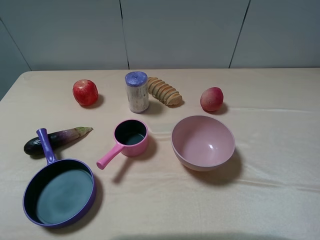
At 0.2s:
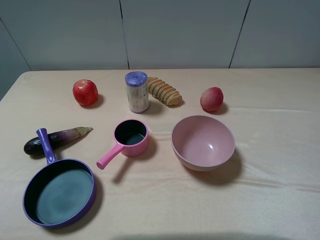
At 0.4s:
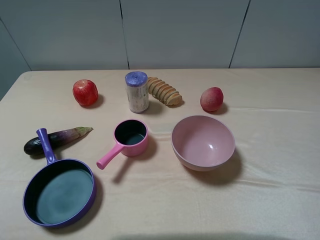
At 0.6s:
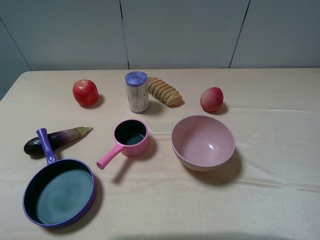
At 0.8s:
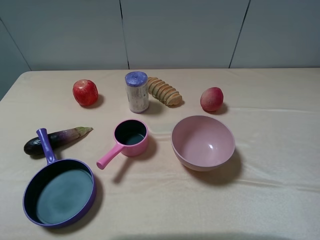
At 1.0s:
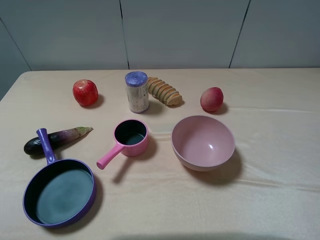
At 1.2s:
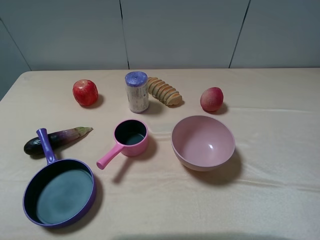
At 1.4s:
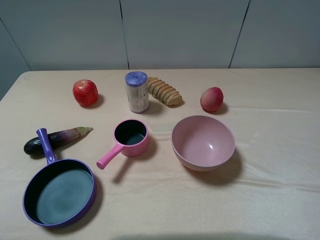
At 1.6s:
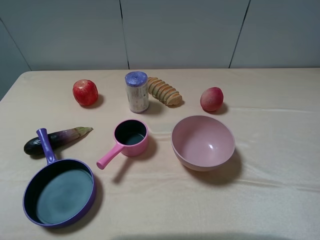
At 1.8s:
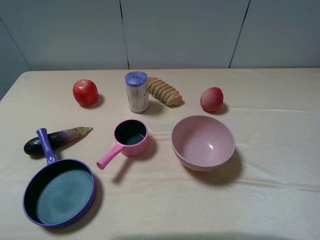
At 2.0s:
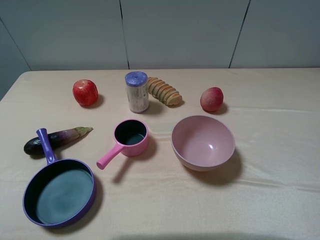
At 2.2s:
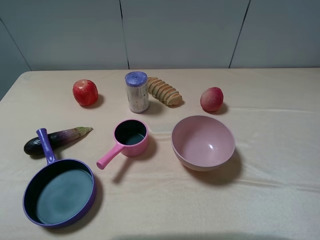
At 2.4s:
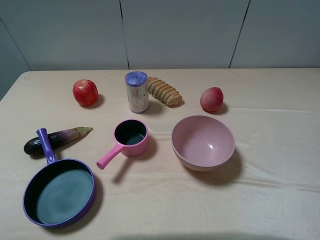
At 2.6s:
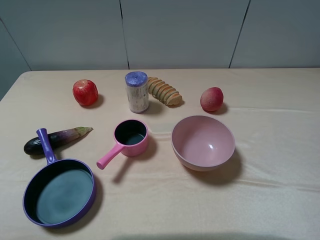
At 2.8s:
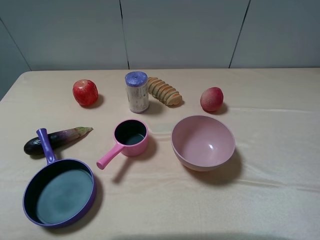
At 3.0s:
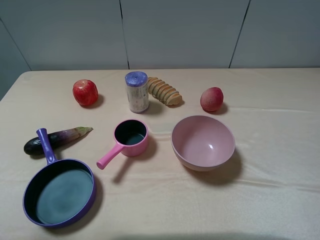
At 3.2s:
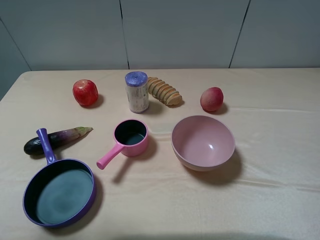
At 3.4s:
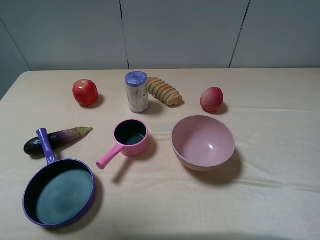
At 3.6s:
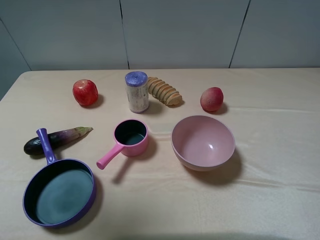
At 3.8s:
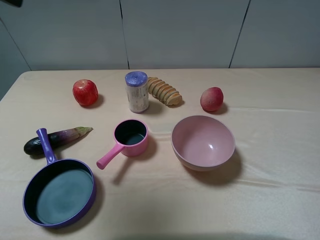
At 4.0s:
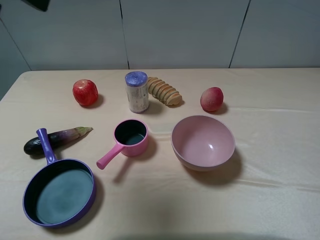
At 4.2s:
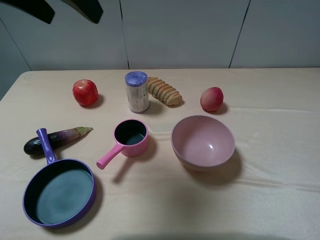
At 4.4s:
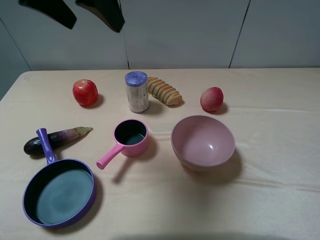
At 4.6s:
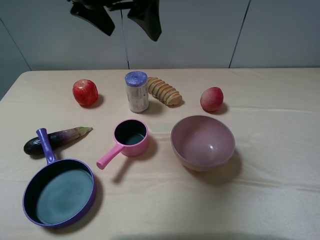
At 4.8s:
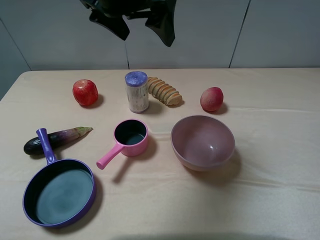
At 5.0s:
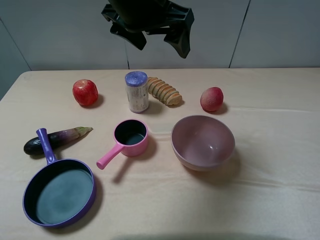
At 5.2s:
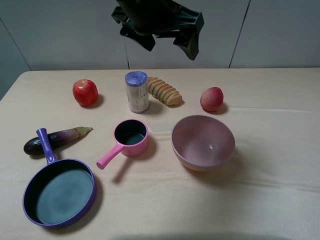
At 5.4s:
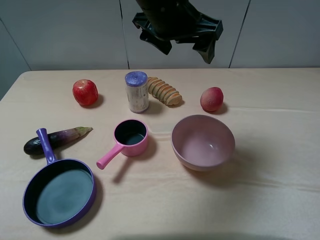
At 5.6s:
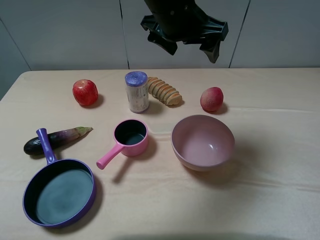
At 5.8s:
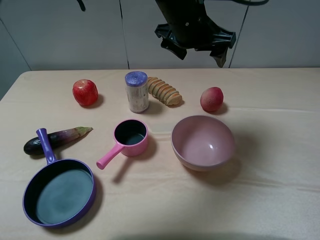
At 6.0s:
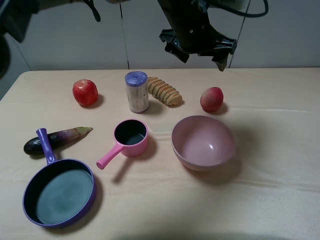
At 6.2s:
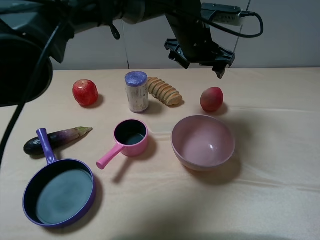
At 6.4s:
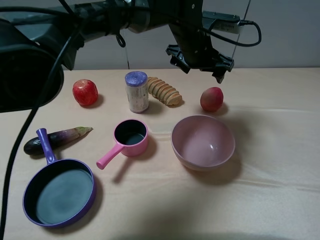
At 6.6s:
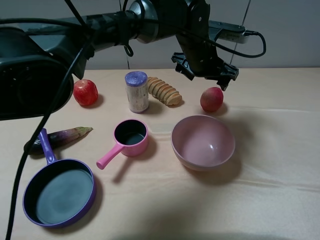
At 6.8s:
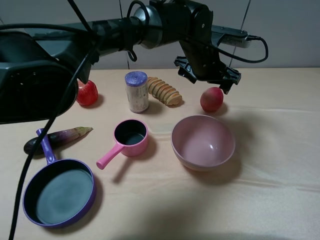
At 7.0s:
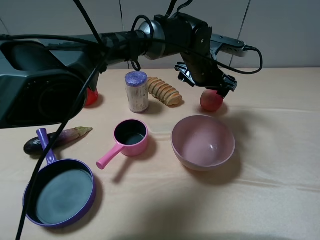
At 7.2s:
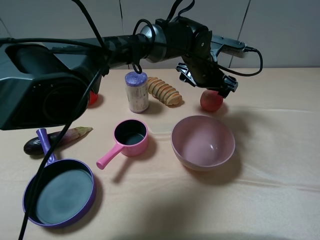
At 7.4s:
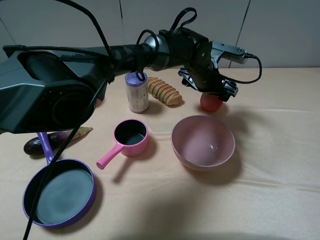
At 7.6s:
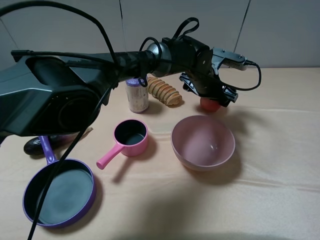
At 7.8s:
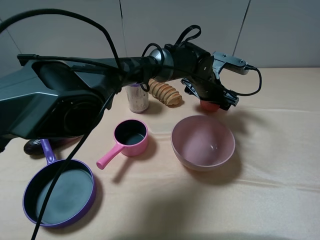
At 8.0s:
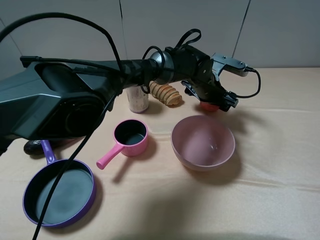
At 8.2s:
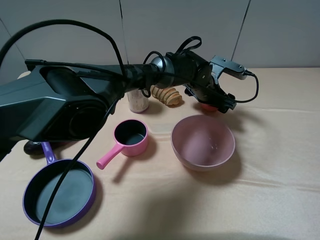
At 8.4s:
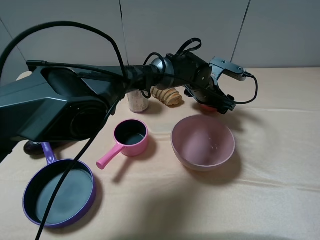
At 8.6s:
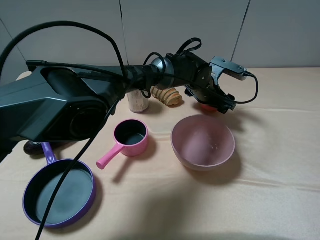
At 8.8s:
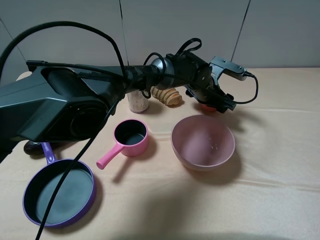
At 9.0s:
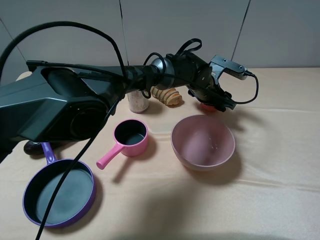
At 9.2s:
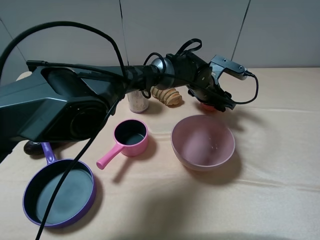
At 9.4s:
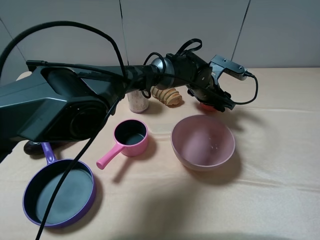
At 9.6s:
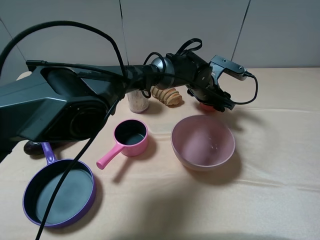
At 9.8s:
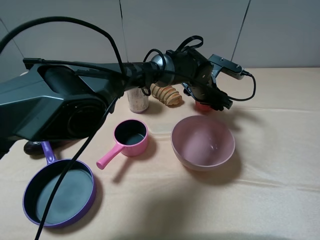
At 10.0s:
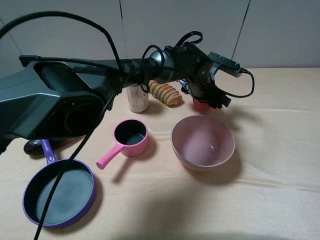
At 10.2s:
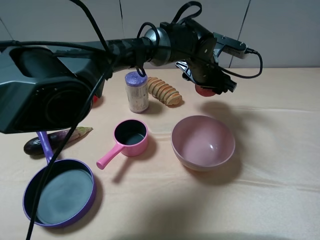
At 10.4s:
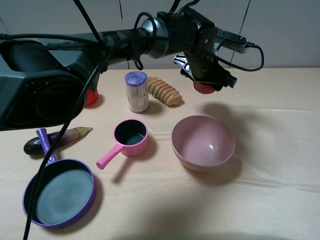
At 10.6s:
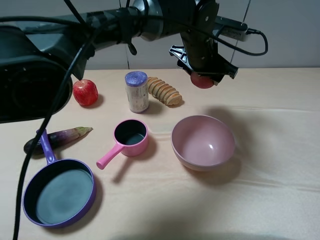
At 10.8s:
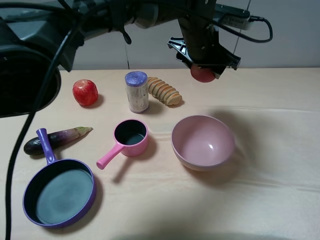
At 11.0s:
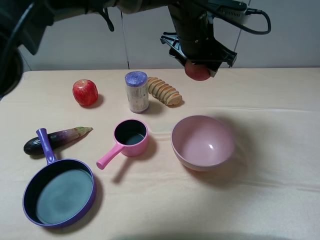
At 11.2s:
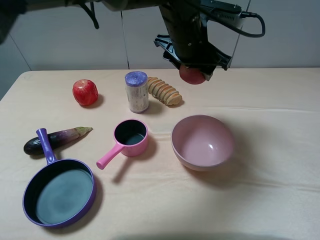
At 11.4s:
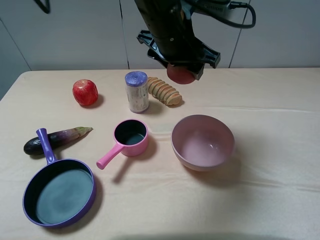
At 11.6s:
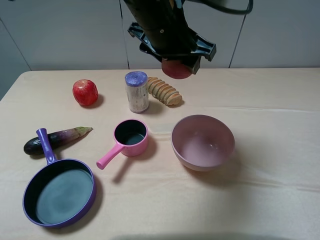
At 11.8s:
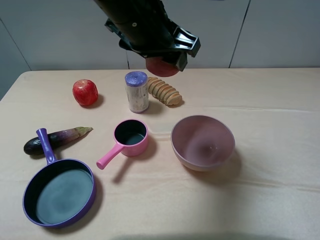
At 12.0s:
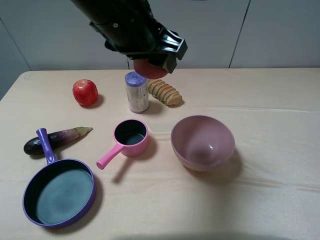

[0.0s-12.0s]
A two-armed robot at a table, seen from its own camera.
Task of the whole recording: pick up an item with a gripper and place it in a random container on the table.
Step, 0.0s to 9.4s: Grasp the peach with the left gripper.
0.0s to 1.6s: The two grippers keep their place.
3.0s to 4.4s: The left gripper goes approximately 25 cm forward and to the right.
4.4s to 6.0s: The left gripper shifts approximately 25 cm to the right, downward and forward.
6.0s to 7.6s: The left gripper travels downward and to the right by some 15 cm.
7.6s to 9.0s: The left gripper closes.
9.0s to 10.4s: The left gripper shifts approximately 10 cm upward.
10.4s to 12.0s: The left gripper travels to the left, upward and backward by about 25 cm.

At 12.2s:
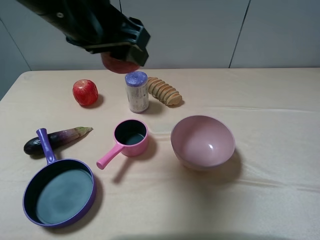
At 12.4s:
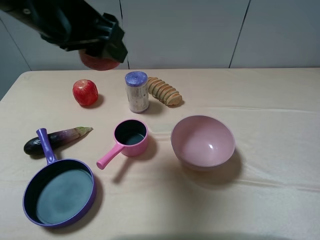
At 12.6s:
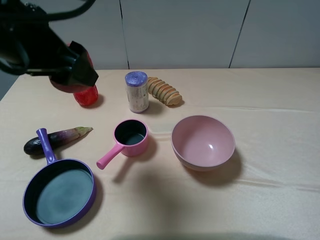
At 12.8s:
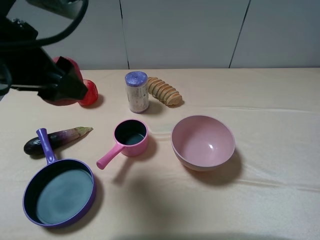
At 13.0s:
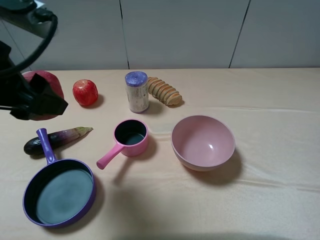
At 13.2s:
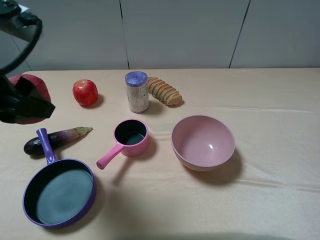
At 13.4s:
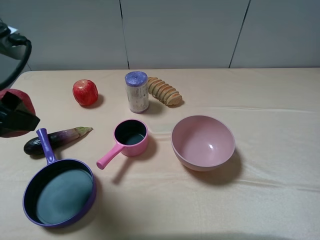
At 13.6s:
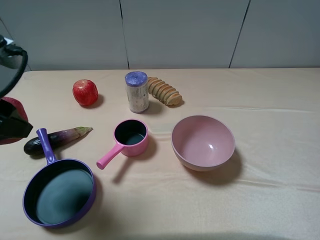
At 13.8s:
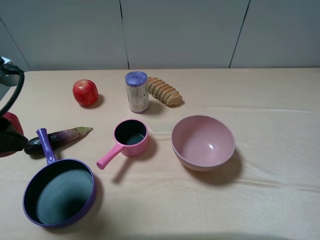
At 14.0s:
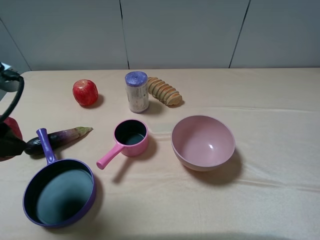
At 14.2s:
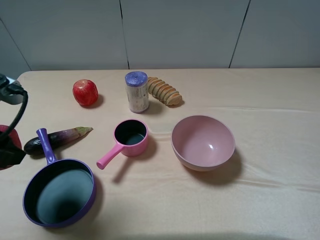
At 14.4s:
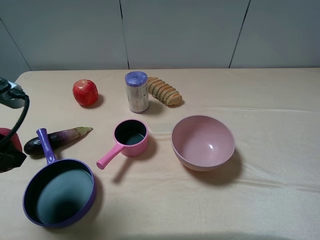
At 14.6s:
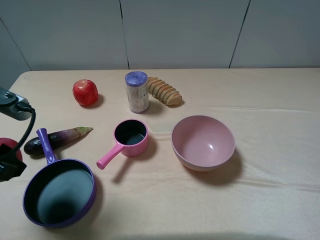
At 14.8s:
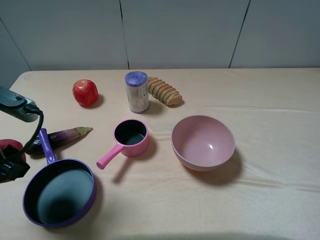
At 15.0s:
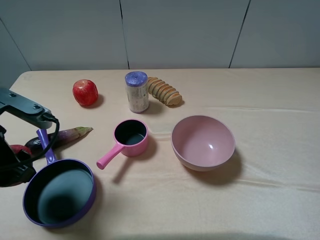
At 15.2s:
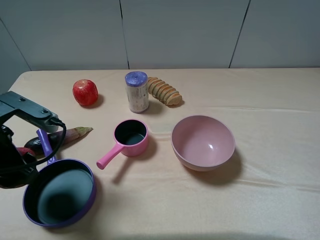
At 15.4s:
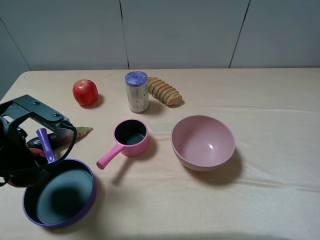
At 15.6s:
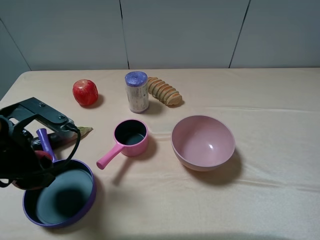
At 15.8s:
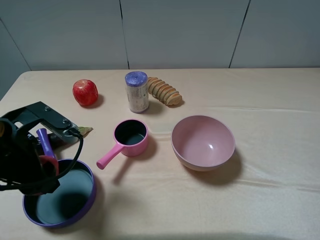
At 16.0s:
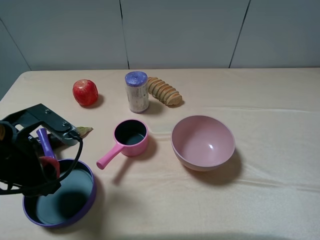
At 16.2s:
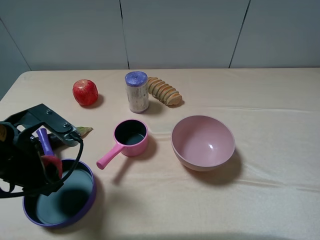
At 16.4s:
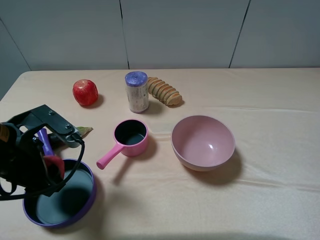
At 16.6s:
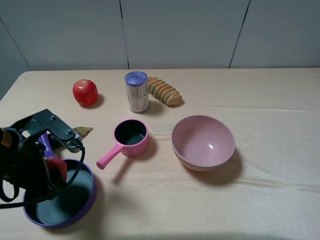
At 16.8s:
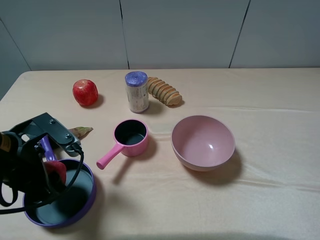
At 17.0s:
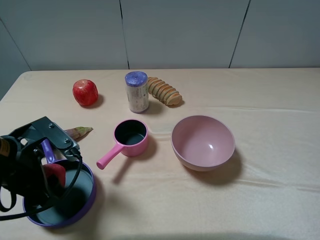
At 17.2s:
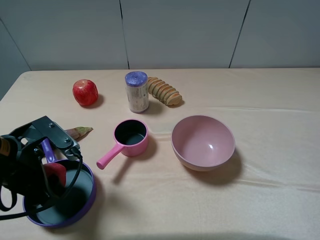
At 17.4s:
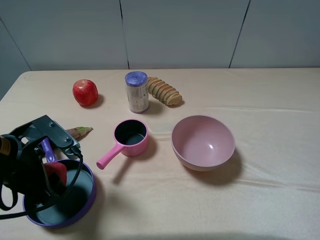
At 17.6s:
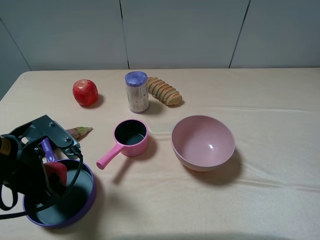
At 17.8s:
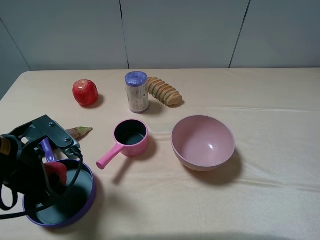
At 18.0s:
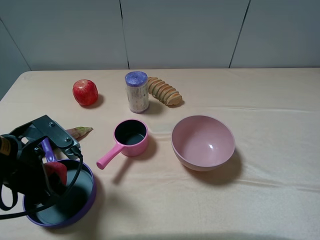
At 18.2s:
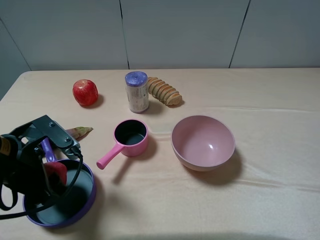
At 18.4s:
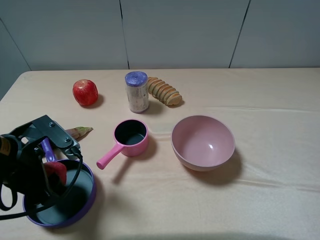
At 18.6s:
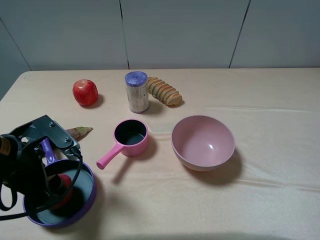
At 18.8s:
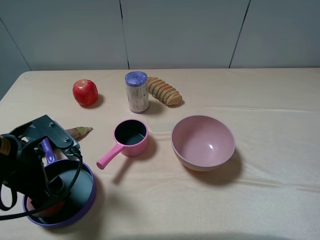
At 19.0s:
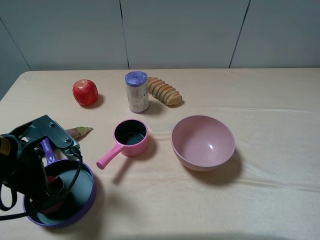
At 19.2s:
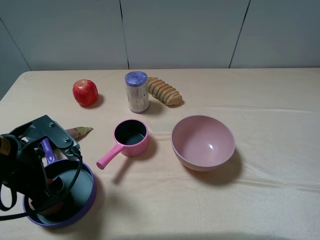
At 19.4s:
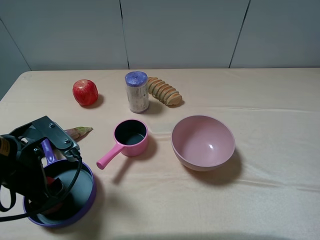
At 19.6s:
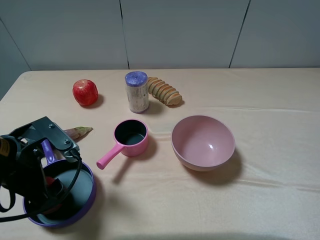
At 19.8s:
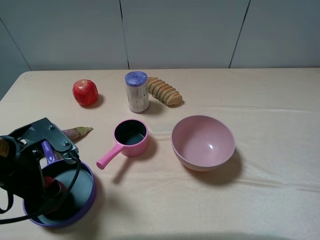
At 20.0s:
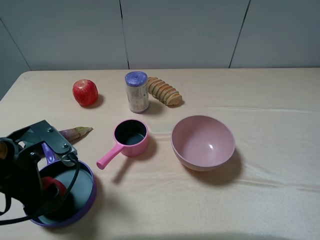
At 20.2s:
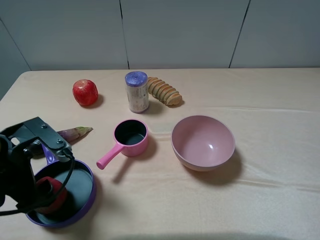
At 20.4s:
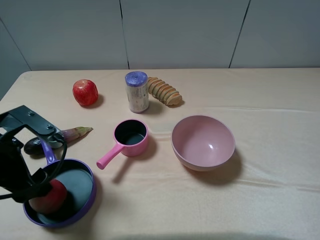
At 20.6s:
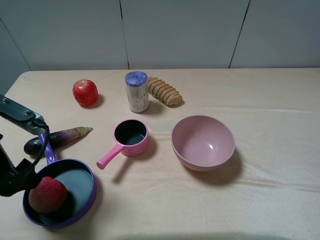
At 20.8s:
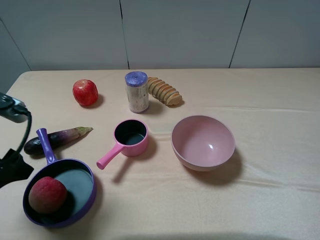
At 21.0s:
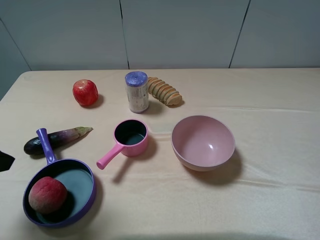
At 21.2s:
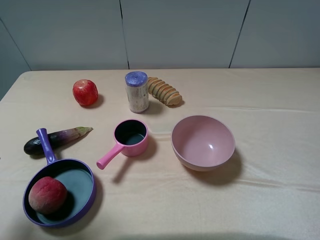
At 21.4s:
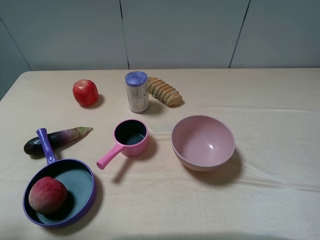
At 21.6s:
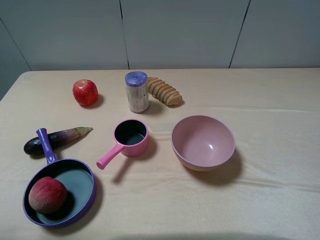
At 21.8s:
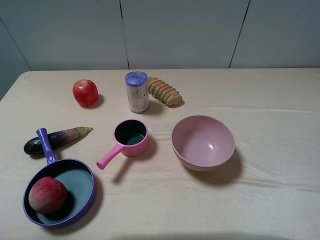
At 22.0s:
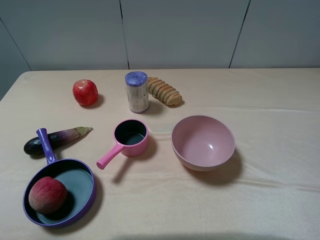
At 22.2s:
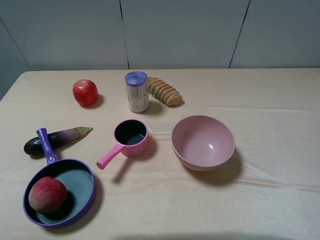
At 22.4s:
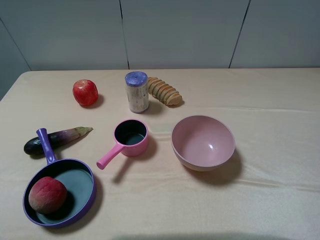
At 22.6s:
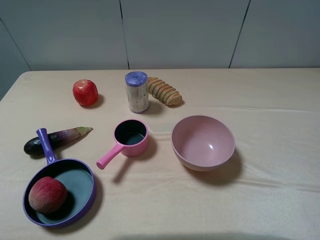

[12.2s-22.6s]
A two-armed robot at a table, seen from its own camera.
Task of the whole recording: pick up an item with a gripper and place it in a random container on the table.
Step, 12.2s to 19.2s: Place the peach into the purple pot with the left gripper.
12.2s to 13.6s: The left gripper moves to the left, backward and downward, approximately 15 cm.
13.6s to 15.2s: The left gripper shifts about 10 cm downward.
15.2s to 16.6s: The grippers move only a little.
16.6s to 18.2s: Neither gripper changes place.
18.2s to 19.6s: The left gripper opens up.
19.6s to 21.2s: The left gripper heads upward, to the left and backward, covering roughly 15 cm.
21.2s to 22.6s: The left gripper shifts approximately 10 cm backward.
